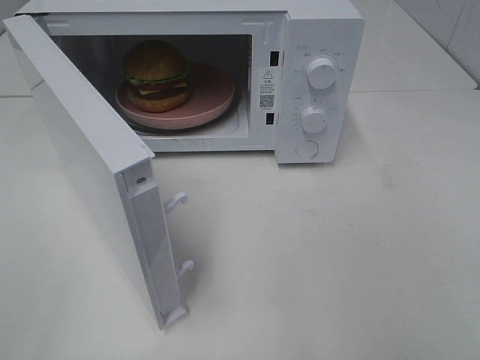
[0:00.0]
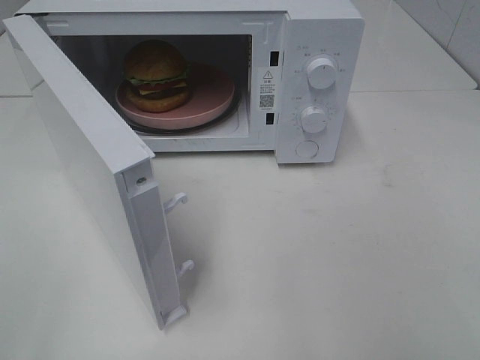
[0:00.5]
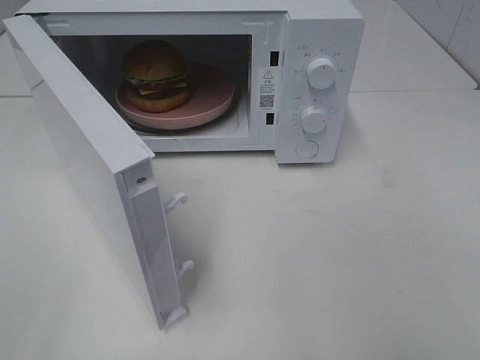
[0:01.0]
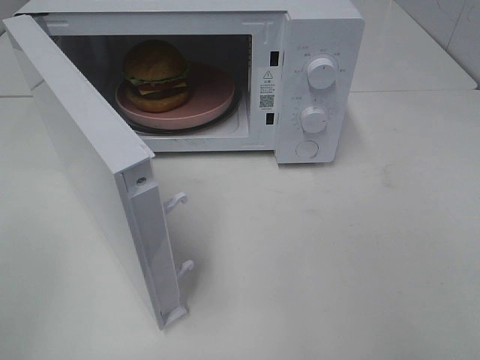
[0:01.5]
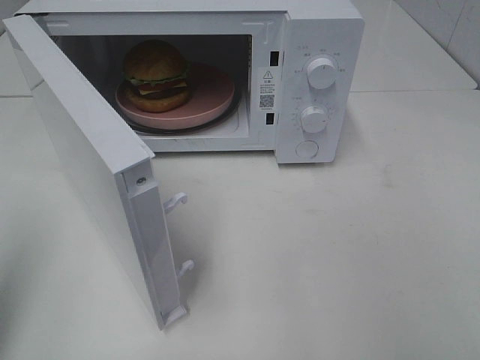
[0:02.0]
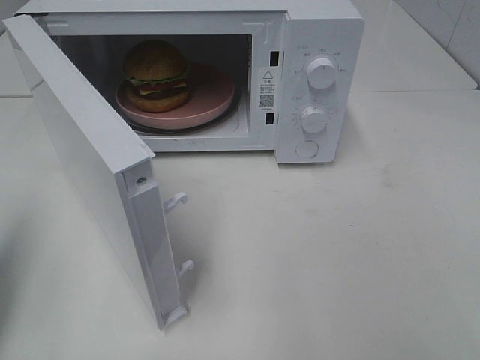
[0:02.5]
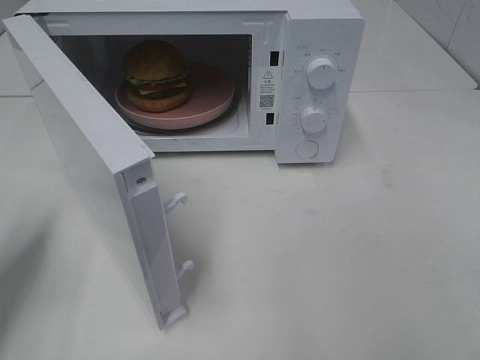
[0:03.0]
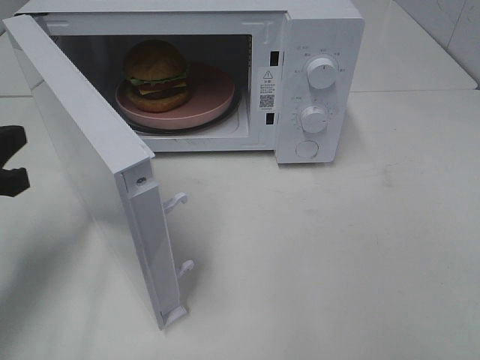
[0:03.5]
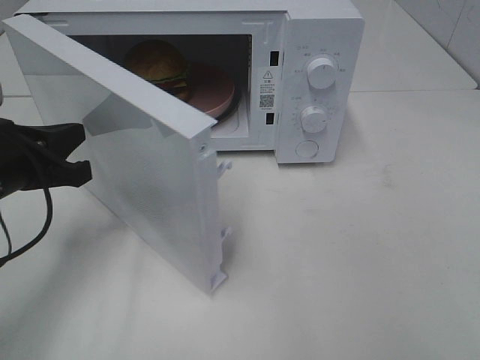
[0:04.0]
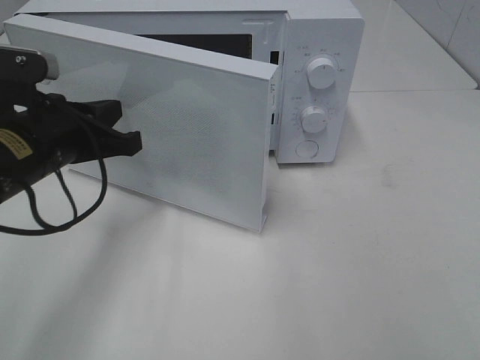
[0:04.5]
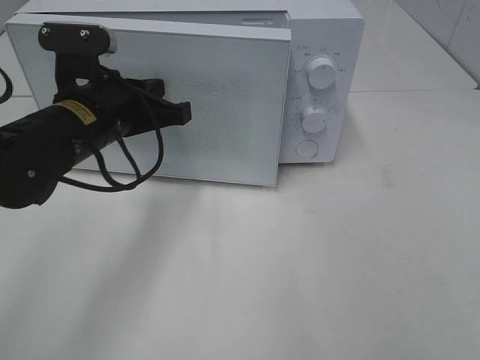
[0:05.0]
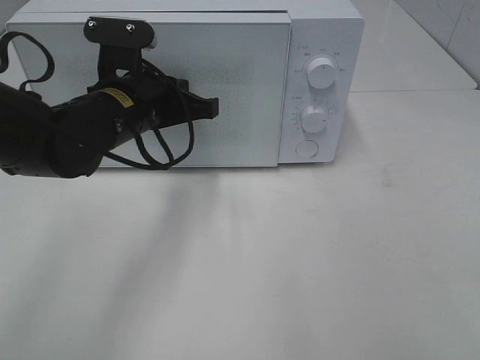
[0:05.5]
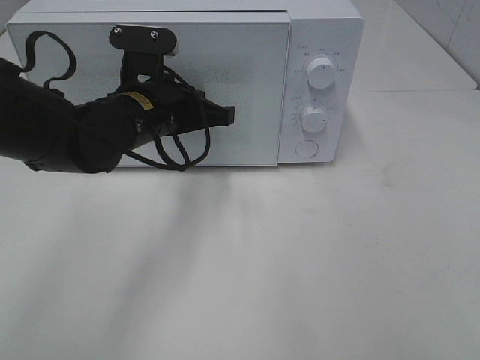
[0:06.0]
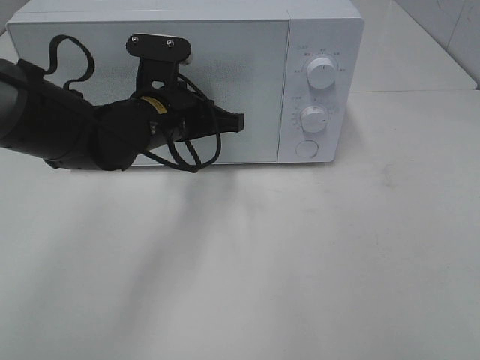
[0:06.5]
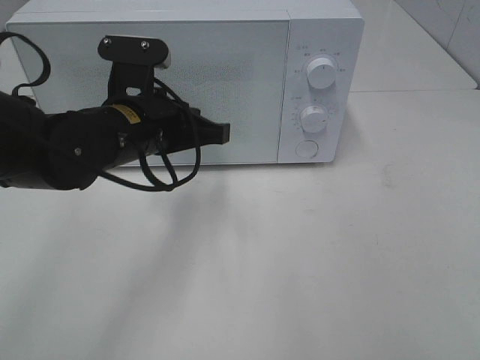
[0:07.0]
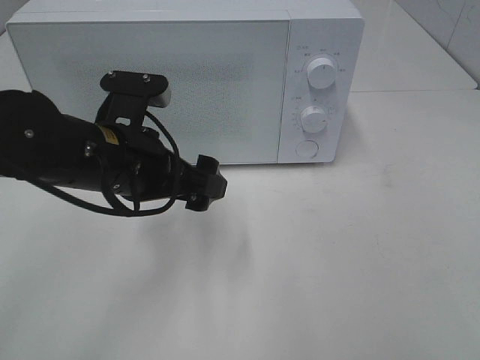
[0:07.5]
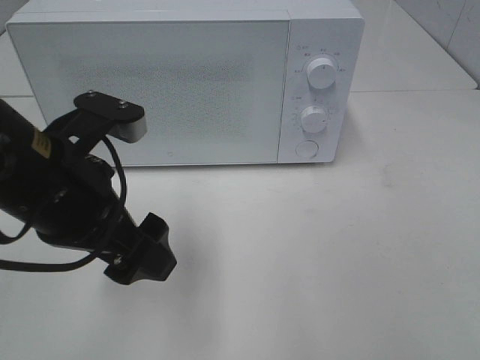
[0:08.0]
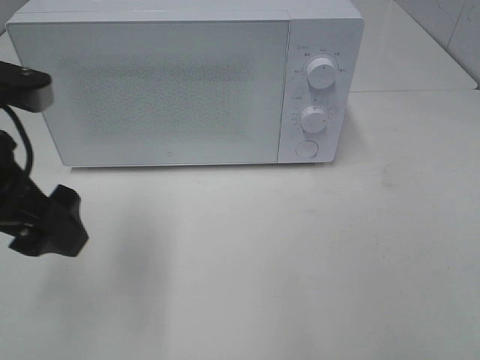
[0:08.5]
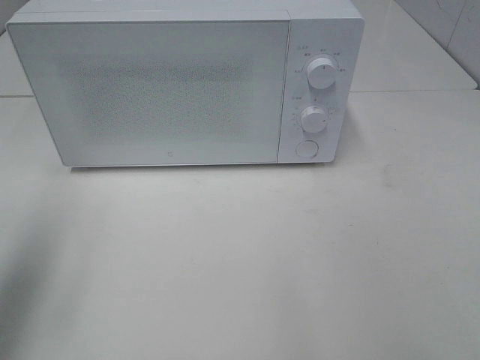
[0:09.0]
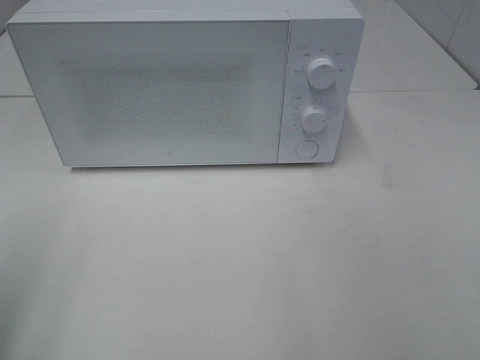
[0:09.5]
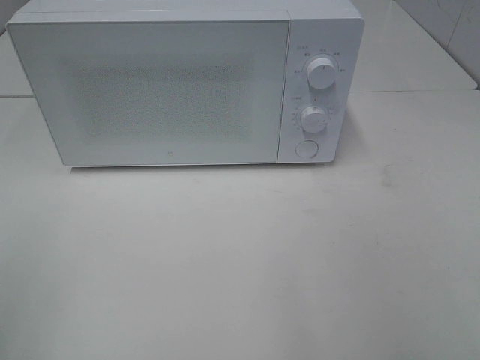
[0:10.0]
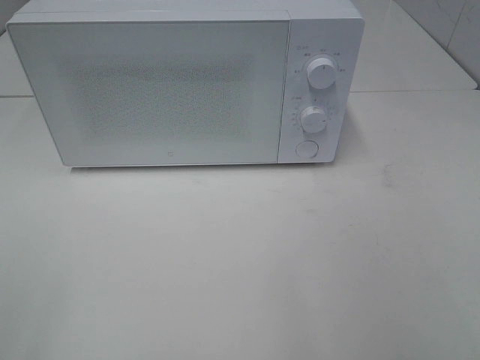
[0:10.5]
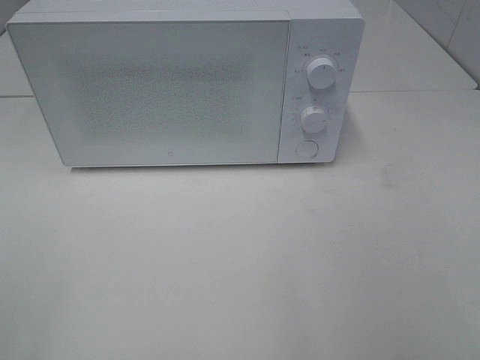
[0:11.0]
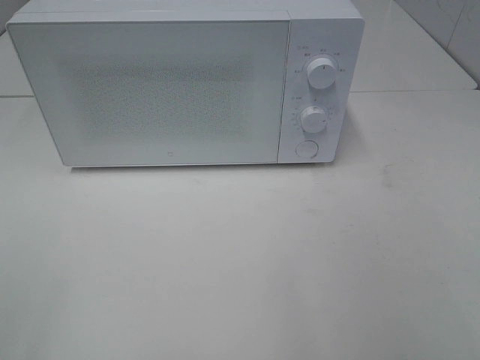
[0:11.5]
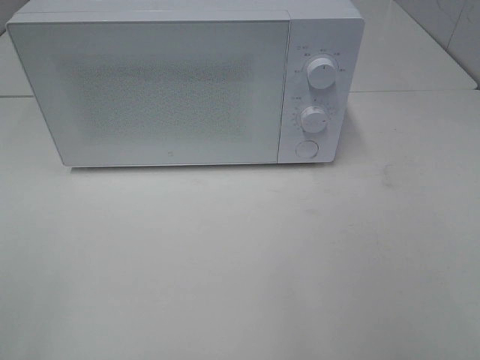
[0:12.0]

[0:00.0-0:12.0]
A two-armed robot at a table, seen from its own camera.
Task of the whole recording: Heat the burger.
Step, 0:00.0 to 0:07.5: Left hand: close the microwave door.
0:00.0 to 0:02.0: The left gripper heads forward, covering about 10 cm, and closes.
0:02.0 to 0:04.0: The left gripper goes some 20 cm downward, forward and to the right.
0:04.0 to 0:06.0: The left gripper heads to the right and forward, covering roughly 15 cm.
0:06.0 to 0:08.0: The left gripper travels backward by roughly 15 cm, and opens up.
0:08.0 to 0:10.0: The left gripper moves to the left and backward, some 25 cm.

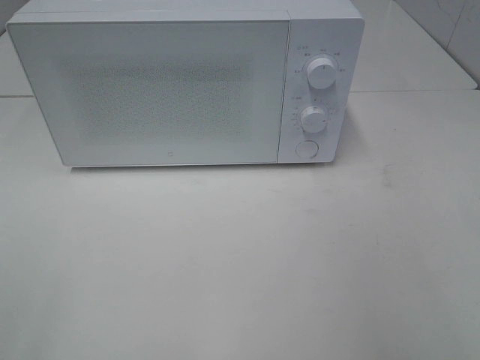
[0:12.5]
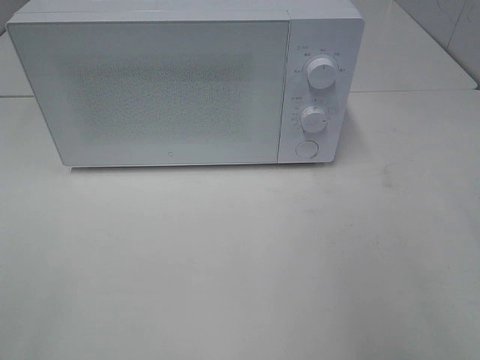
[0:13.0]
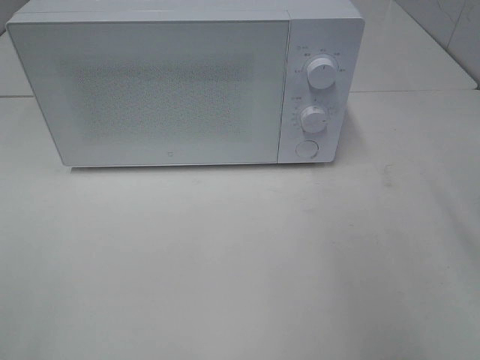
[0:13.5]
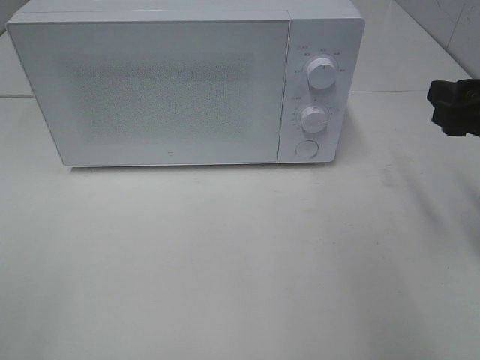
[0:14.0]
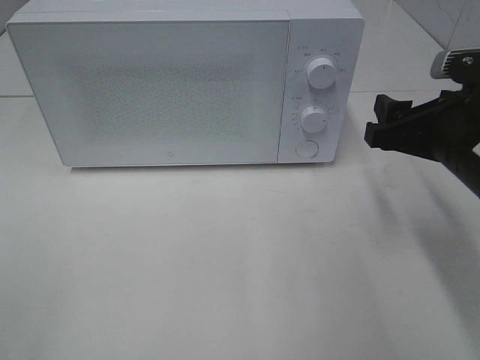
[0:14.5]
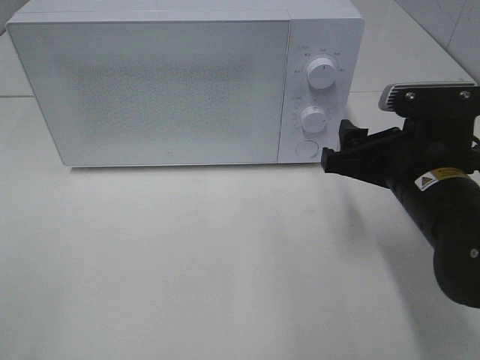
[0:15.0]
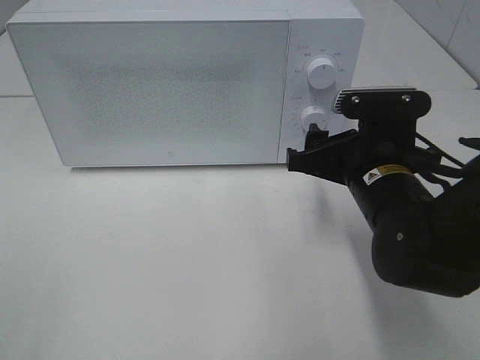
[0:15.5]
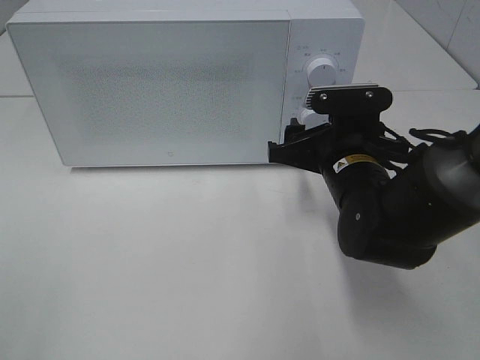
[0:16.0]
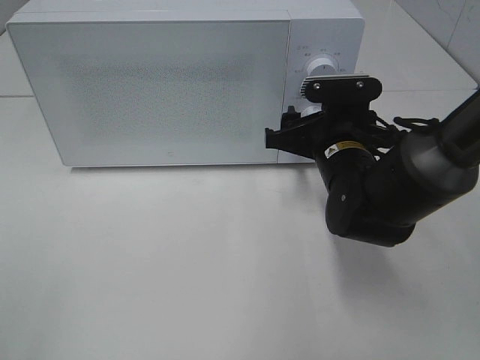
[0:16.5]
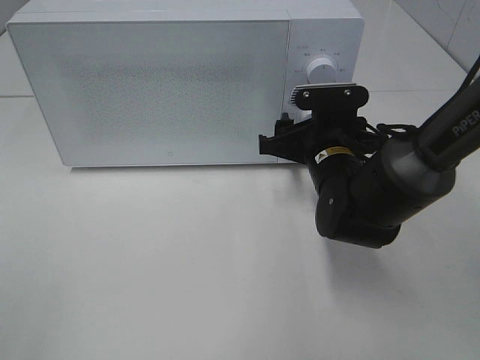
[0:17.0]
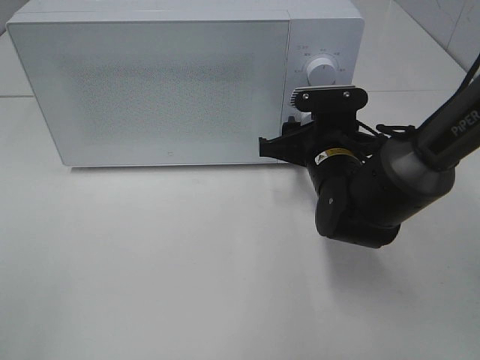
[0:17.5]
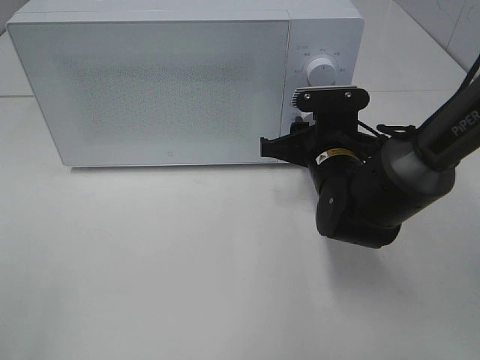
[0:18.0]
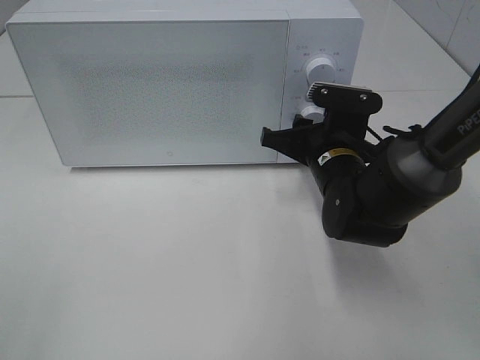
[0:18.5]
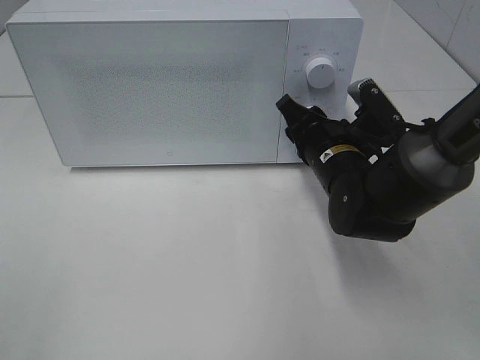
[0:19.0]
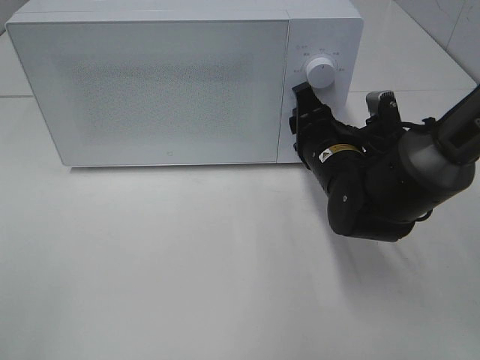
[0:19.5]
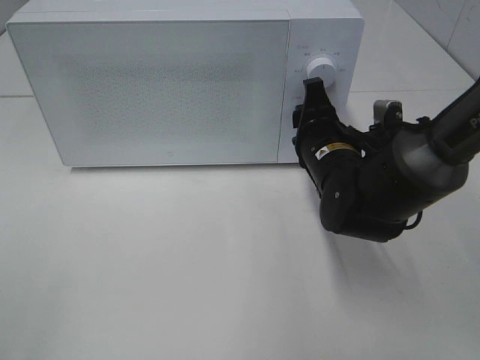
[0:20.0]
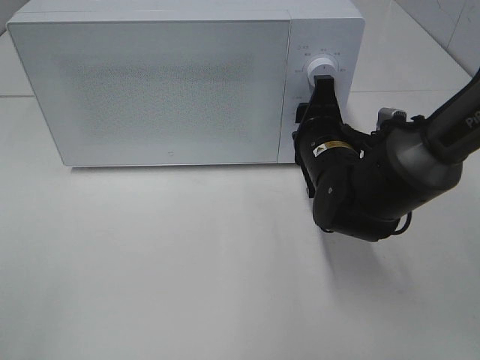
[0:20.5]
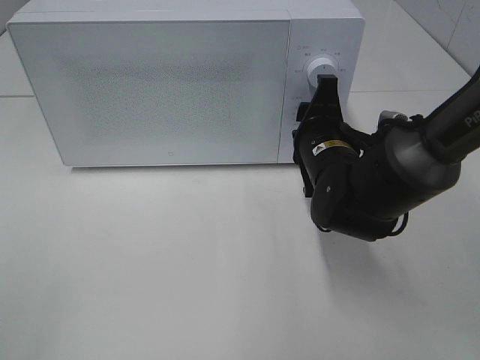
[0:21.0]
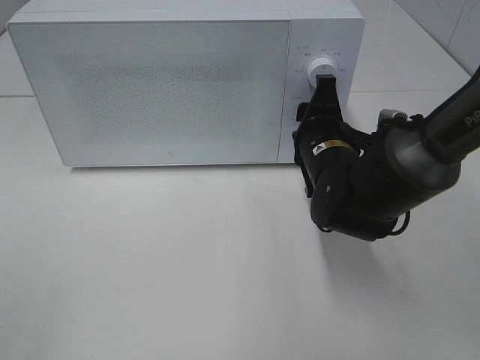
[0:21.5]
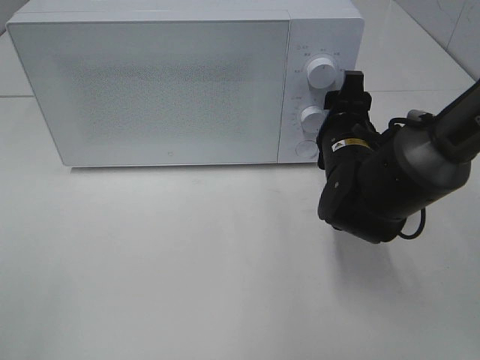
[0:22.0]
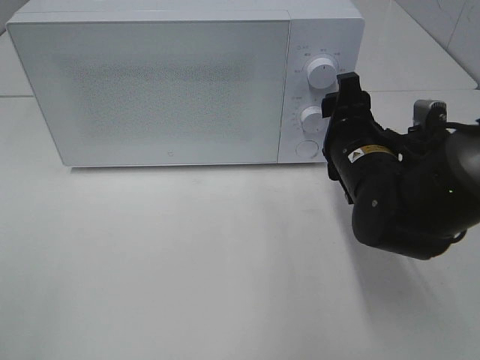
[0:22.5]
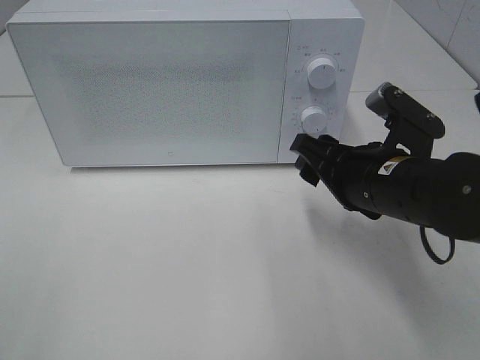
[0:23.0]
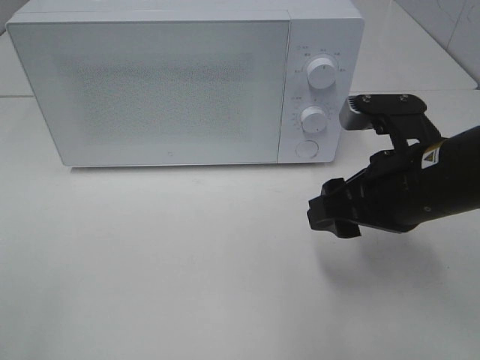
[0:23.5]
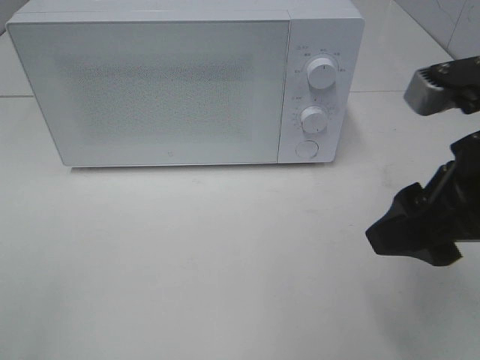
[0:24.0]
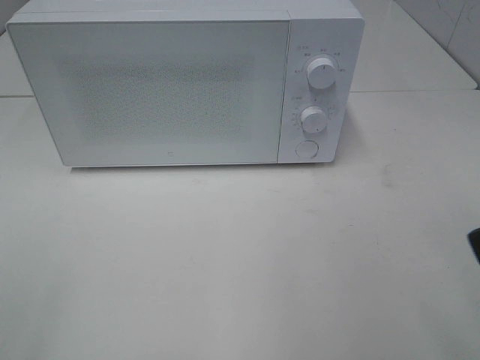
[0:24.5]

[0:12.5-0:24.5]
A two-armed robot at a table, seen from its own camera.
Task of the whole recording: Heat the burger.
Step, 0:12.5 to 0:22.0: Right hand: twist timer button.
0:12.5 to 0:14.5: The right gripper shifts roughly 20 cm forward and downward.
0:14.5 to 0:16.5: The right gripper goes some 15 cm to the left, forward and downward.
0:16.5 to 0:18.5: The right gripper closes its fingers.
0:20.5 to 0:22.5: The grippers move only a little.
0:22.5 to 0:24.5: The right gripper goes approximately 30 cm backward, upward and to the right.

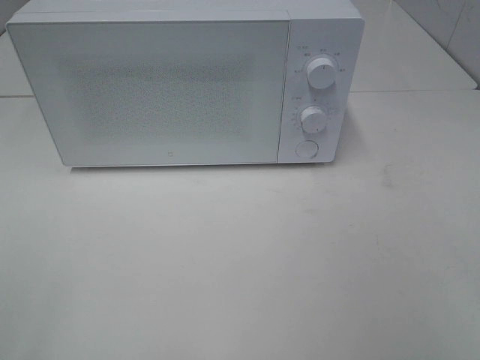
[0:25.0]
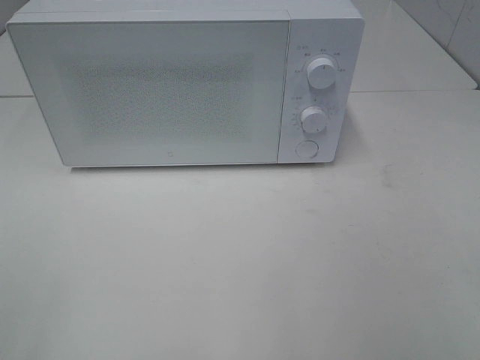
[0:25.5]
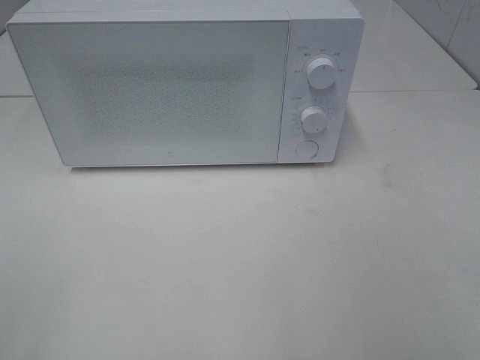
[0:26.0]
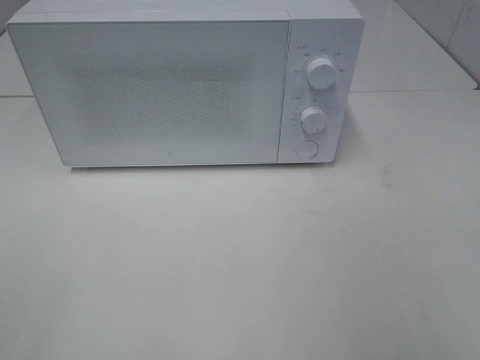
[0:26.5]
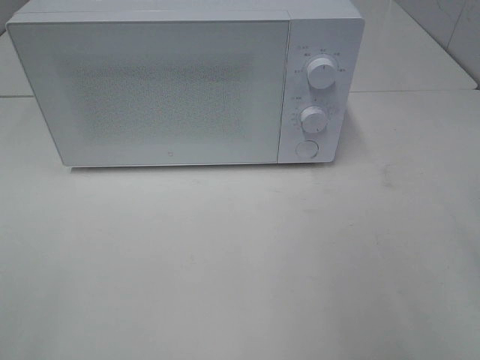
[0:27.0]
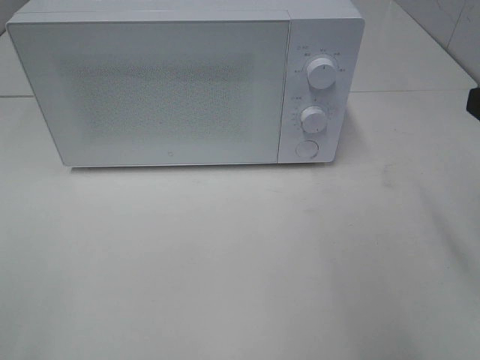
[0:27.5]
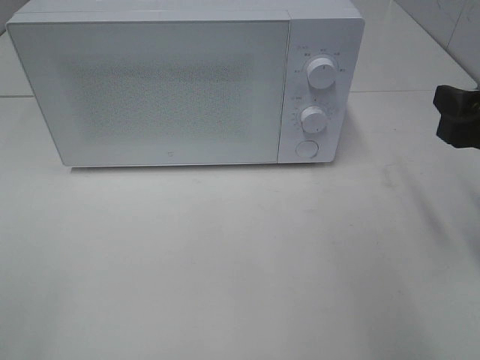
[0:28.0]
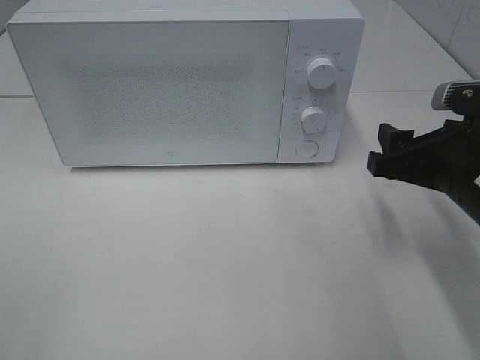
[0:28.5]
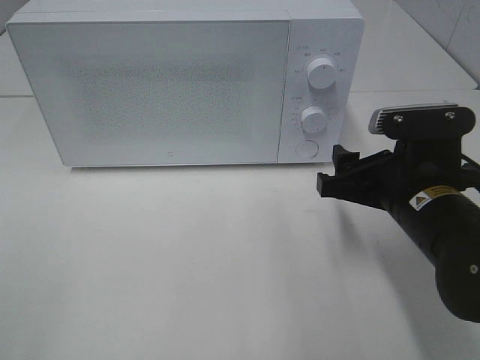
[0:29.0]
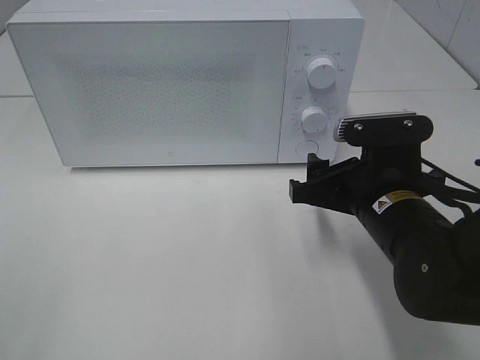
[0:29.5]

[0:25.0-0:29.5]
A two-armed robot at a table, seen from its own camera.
Task of the whole recording: Heat the burger.
0:27.0 to 0:29.5: The right gripper goes approximately 25 cm downward, to the left and forward.
